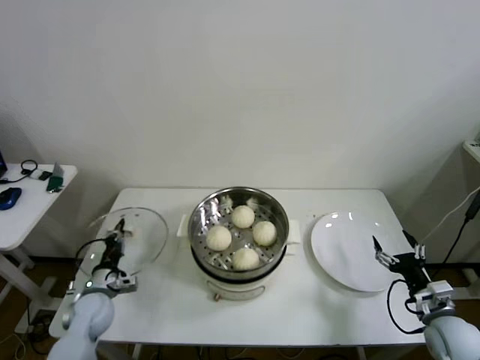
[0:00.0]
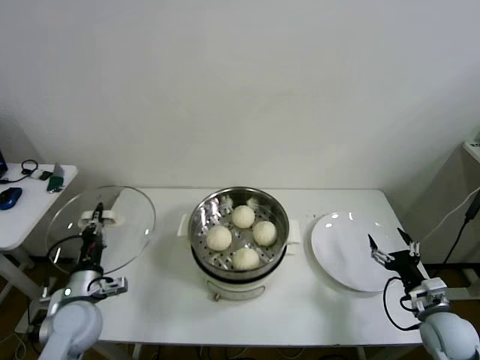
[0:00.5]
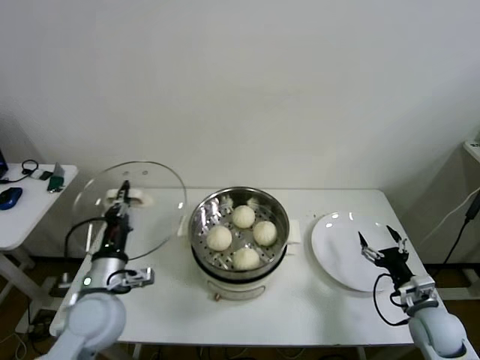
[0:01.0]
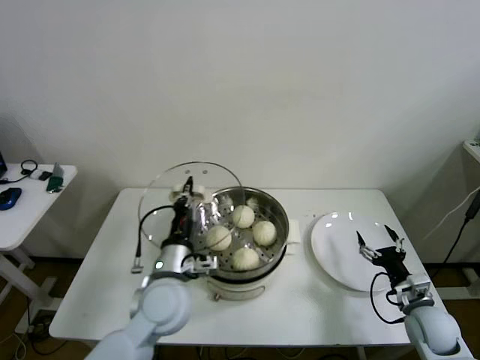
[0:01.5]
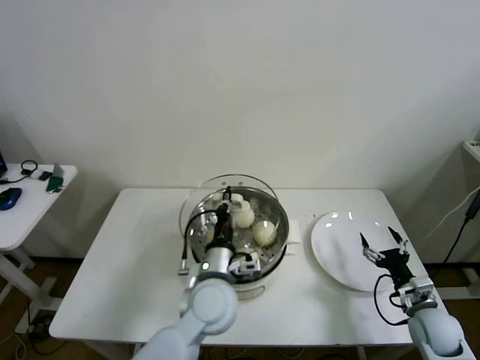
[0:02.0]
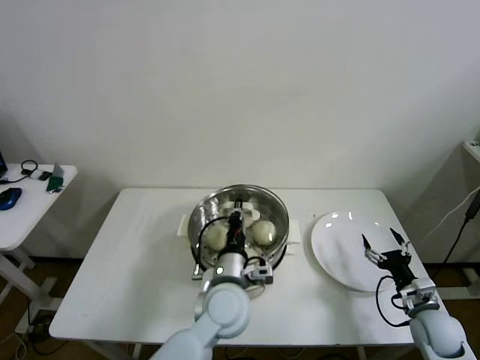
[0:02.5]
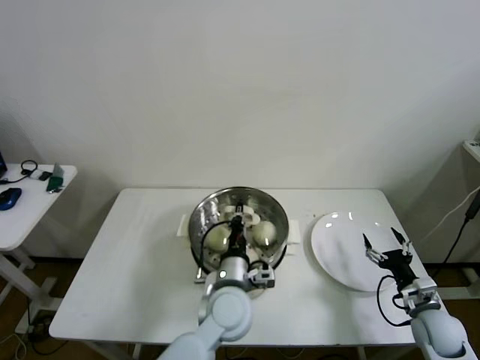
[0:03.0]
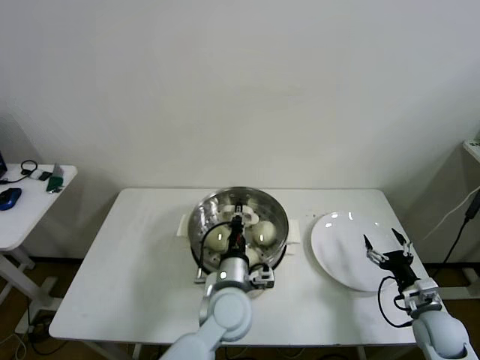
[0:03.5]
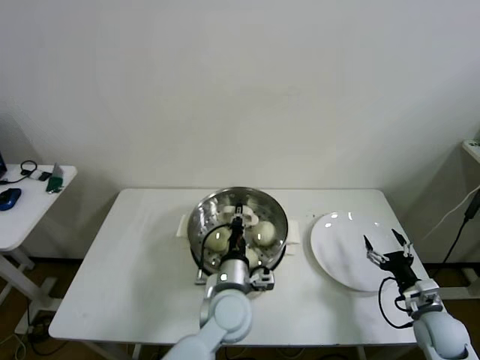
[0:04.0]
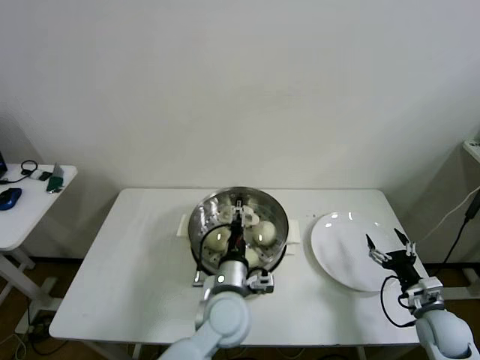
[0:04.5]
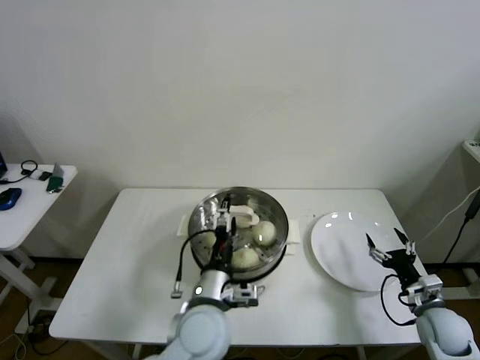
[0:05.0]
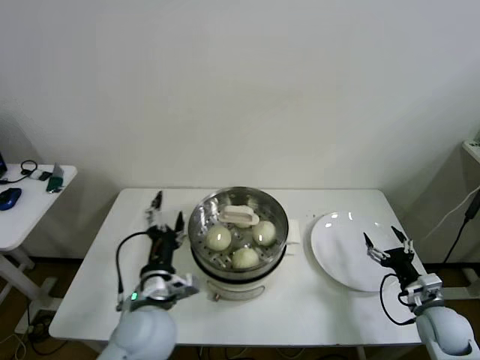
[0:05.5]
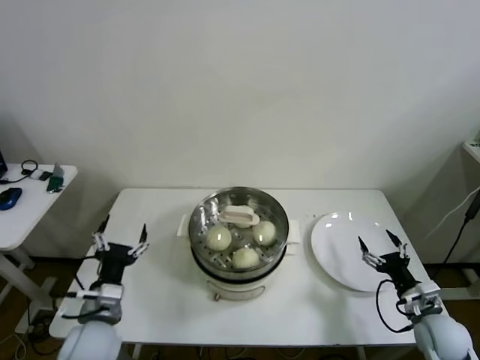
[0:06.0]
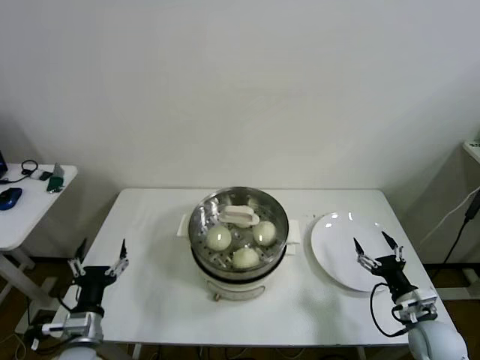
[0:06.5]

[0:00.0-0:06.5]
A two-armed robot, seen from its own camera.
Step, 0:00.0 to 0:04.0: Place the pot lid on the steamer with left gripper.
0:00.0 to 0:02.0: The left gripper heads to the right and upward, covering some 35 cm.
0:02.0 to 0:04.5: The left gripper changes place by about 5 cm, and opens.
0:04.5 to 0:06.5: The left gripper travels to the left by some 30 cm, and opens up.
